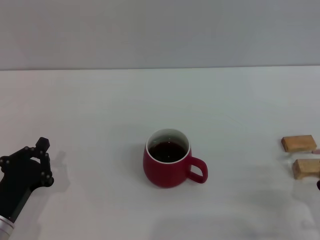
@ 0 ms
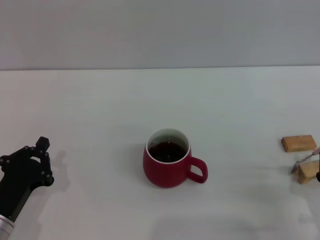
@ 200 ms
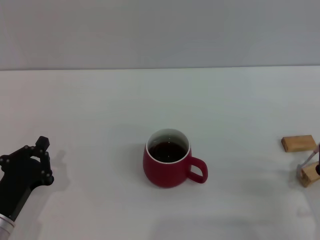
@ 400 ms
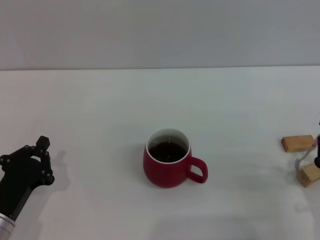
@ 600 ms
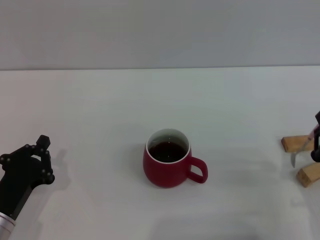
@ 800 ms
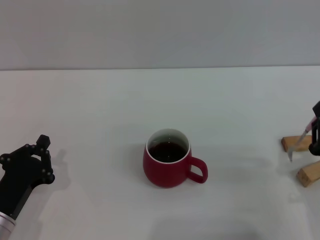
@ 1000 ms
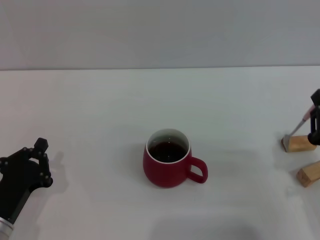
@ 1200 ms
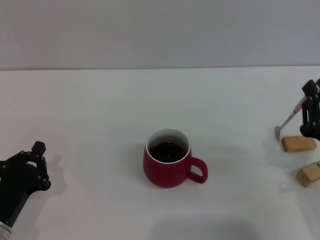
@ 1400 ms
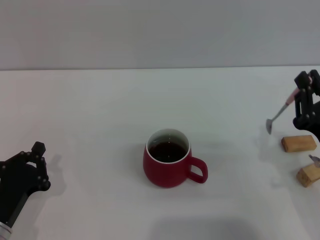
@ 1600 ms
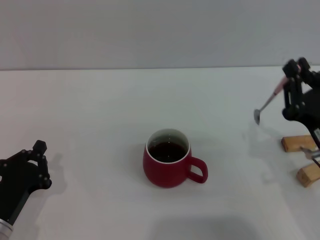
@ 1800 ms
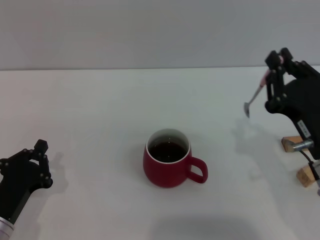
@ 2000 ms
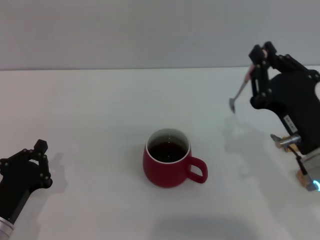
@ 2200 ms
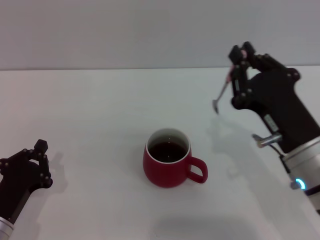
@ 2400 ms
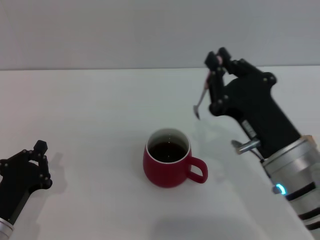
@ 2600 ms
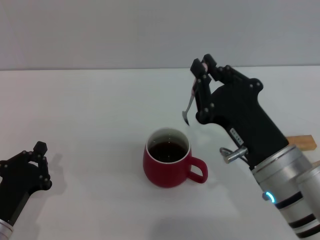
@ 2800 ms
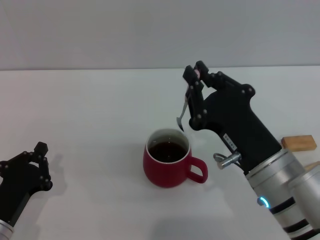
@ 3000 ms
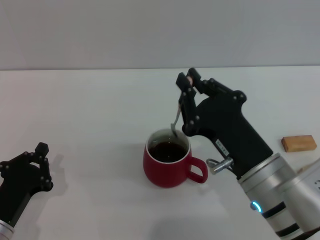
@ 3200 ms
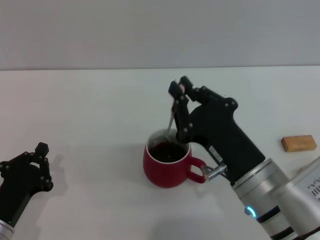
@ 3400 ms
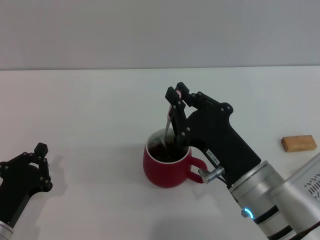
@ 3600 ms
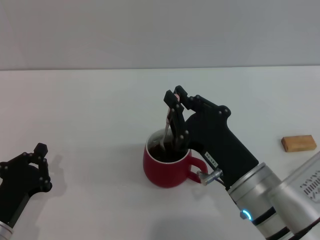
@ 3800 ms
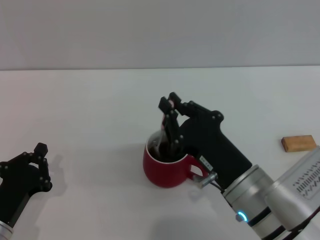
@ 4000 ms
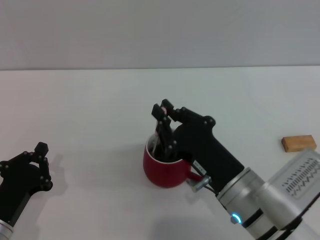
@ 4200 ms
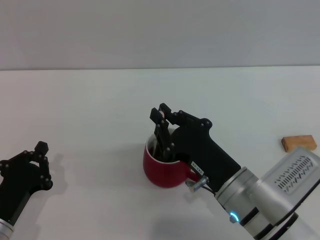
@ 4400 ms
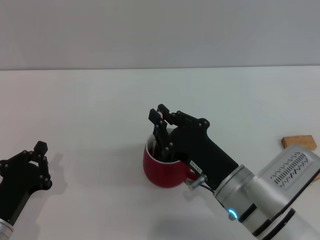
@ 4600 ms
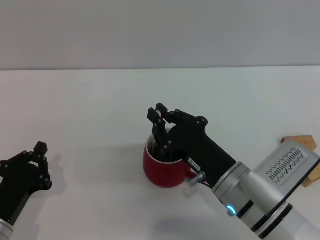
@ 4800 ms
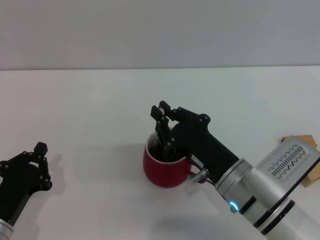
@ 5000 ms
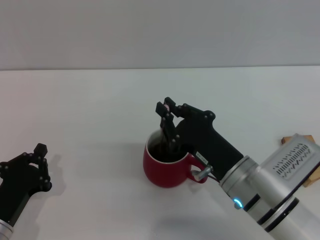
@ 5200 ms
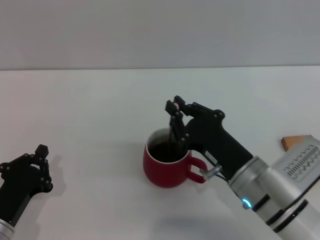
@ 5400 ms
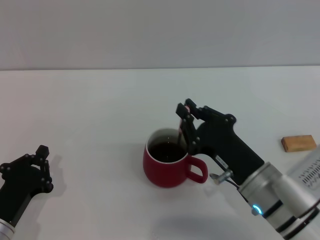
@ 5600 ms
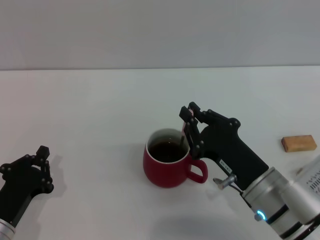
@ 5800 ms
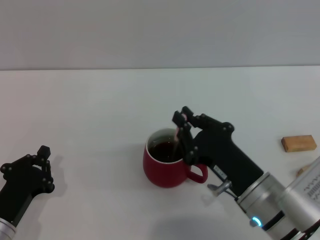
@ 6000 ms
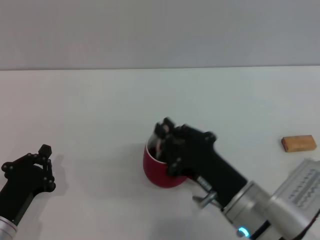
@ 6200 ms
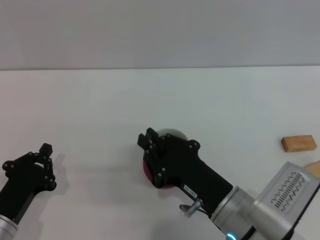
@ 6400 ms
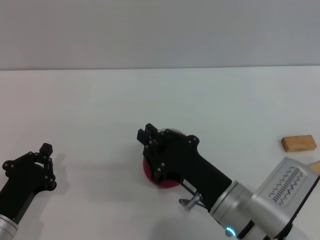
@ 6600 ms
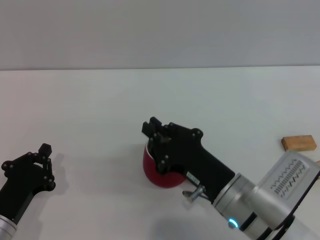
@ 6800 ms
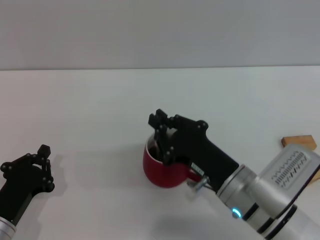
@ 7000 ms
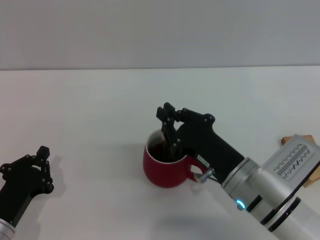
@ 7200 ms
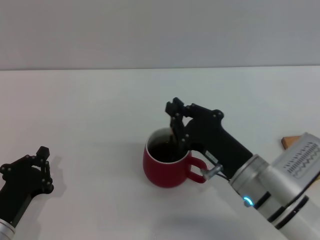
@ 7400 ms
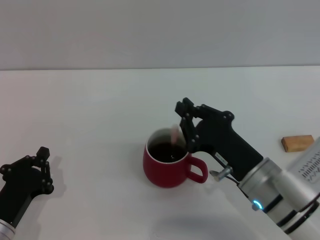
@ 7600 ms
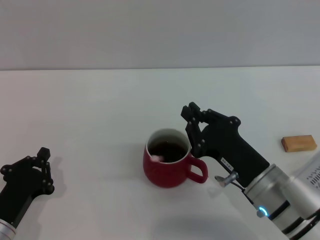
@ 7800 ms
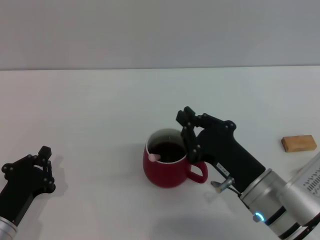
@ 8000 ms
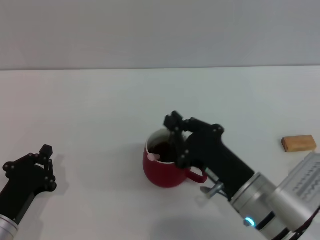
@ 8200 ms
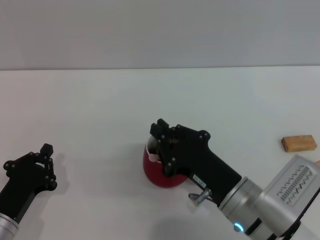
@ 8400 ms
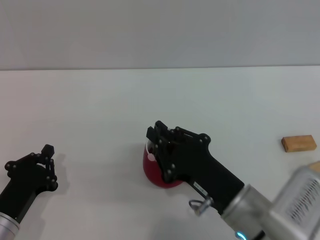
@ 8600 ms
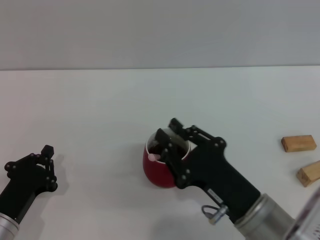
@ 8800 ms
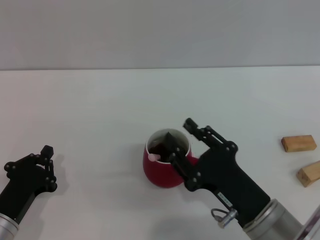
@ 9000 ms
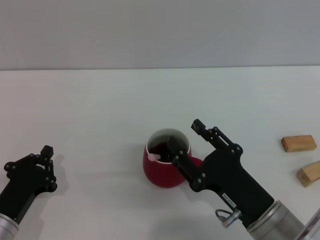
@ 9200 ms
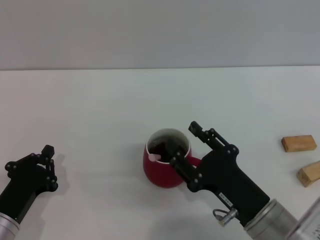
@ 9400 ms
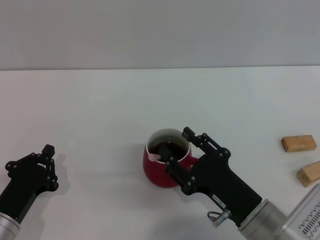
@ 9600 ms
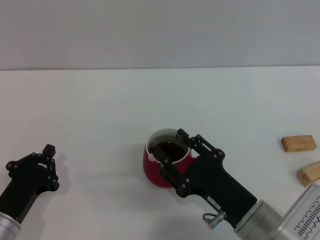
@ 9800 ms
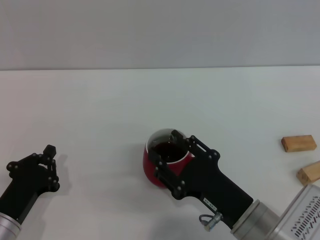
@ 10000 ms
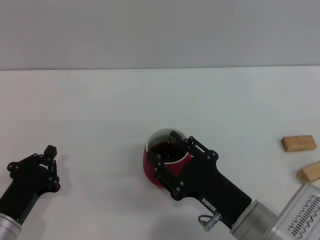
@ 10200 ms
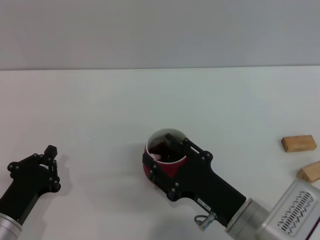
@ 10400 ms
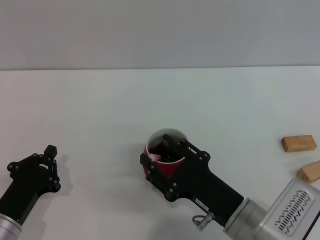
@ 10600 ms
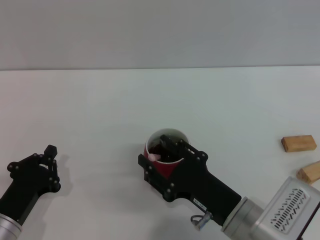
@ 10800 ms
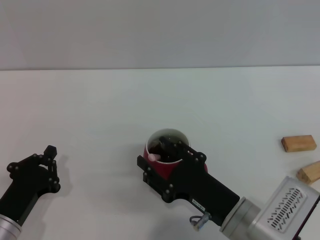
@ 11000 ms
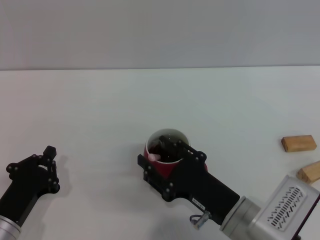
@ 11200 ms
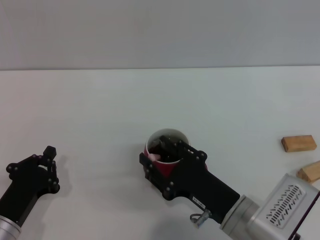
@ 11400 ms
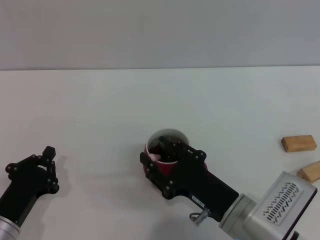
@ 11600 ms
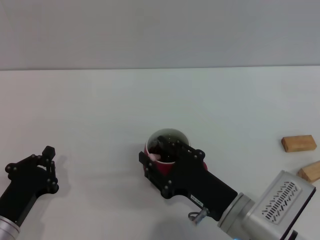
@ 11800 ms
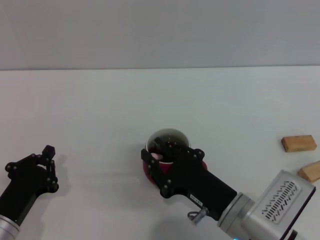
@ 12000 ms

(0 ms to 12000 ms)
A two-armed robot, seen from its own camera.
Task of the whole recording: Move the red cup to the center, lift the pink spoon, stir it three times in the cup, and put the spoon into the cup.
0 ms - 1600 ms: The right gripper goes approximately 10 cm forward and upward.
1600 ms - 3000 ms: The right gripper is displaced to the left by roughly 10 cm.
3000 ms - 4400 ms: The right gripper is displaced downward by roughly 5 cm.
4400 ms - 7600 ms: There are only small adjustments of the grippers.
7600 ms - 9000 ms: The right gripper travels backward by some 5 cm.
9000 ms - 10400 ms: The right gripper opens its fingers.
10400 ms - 12000 ms: Neither gripper changes place.

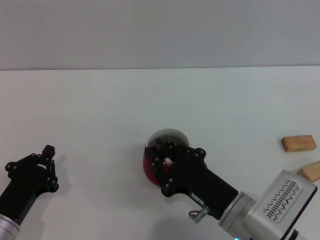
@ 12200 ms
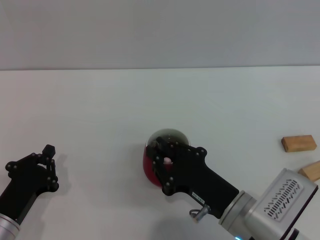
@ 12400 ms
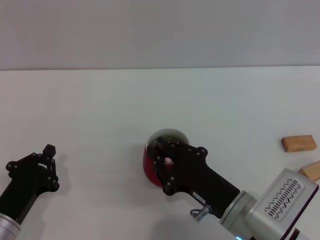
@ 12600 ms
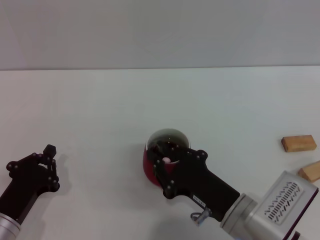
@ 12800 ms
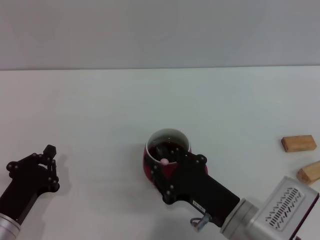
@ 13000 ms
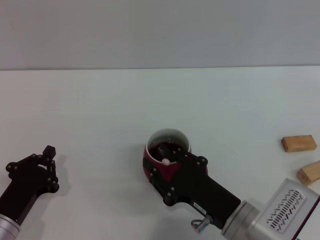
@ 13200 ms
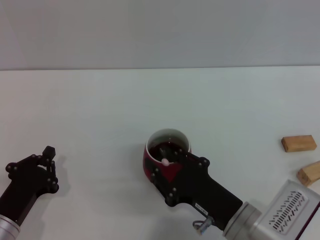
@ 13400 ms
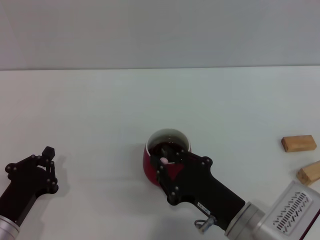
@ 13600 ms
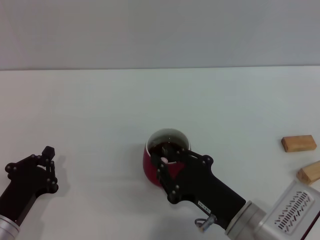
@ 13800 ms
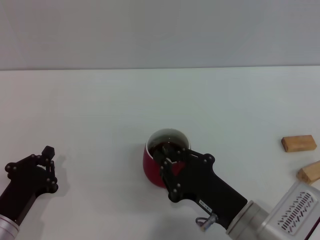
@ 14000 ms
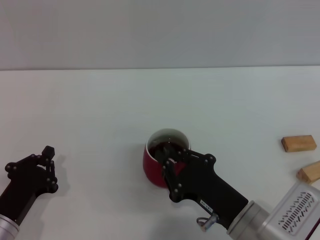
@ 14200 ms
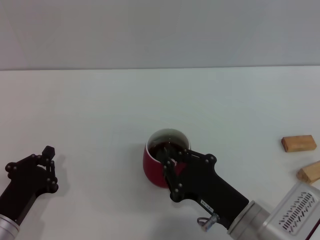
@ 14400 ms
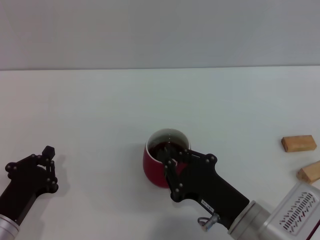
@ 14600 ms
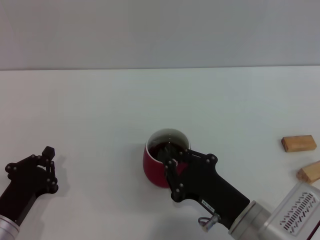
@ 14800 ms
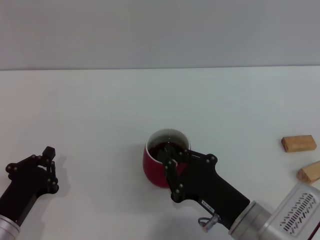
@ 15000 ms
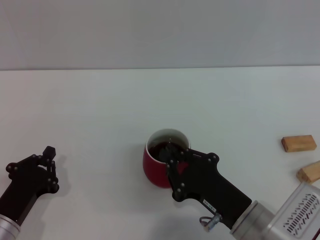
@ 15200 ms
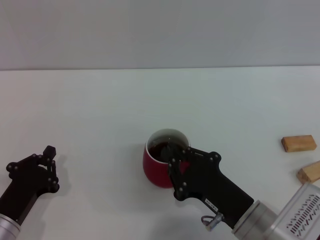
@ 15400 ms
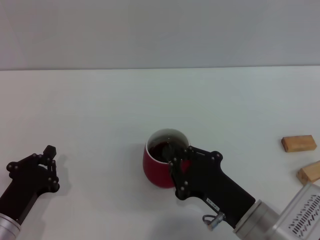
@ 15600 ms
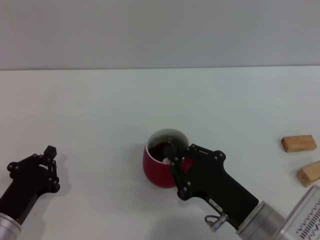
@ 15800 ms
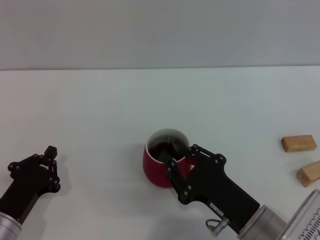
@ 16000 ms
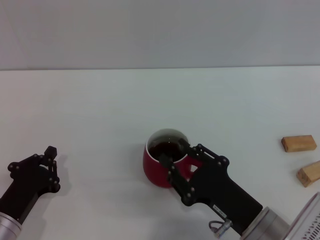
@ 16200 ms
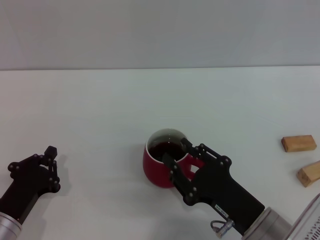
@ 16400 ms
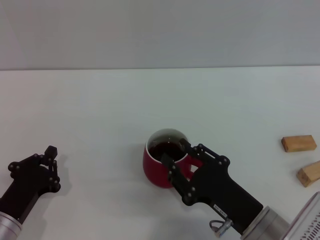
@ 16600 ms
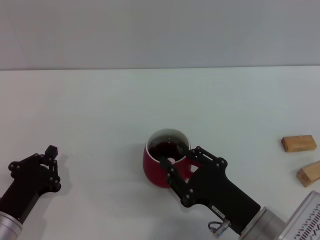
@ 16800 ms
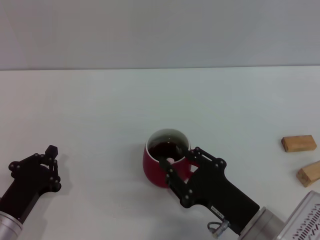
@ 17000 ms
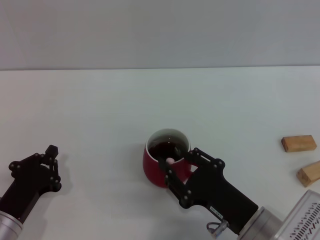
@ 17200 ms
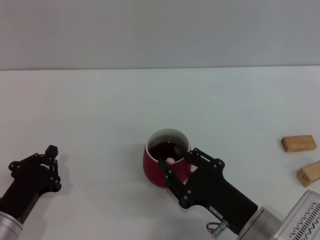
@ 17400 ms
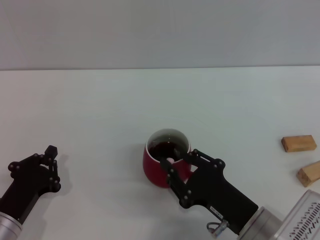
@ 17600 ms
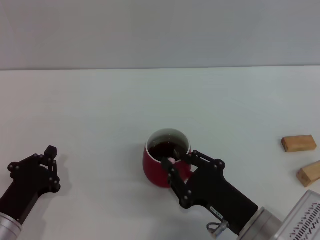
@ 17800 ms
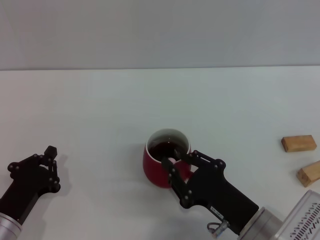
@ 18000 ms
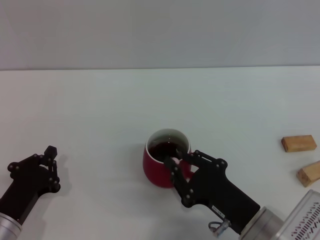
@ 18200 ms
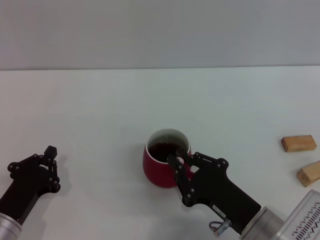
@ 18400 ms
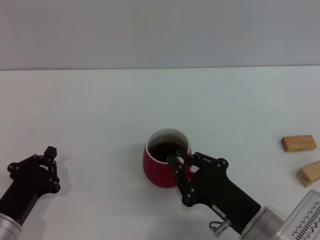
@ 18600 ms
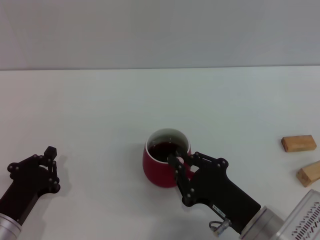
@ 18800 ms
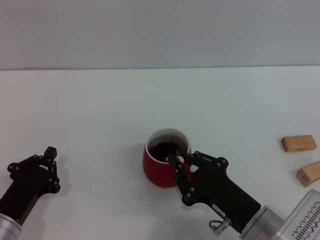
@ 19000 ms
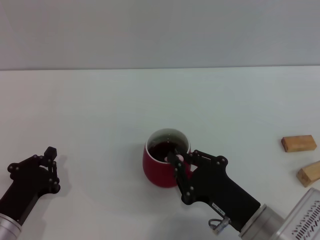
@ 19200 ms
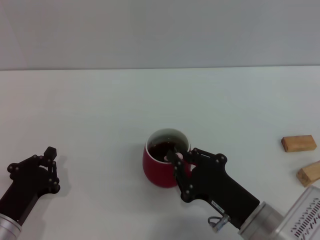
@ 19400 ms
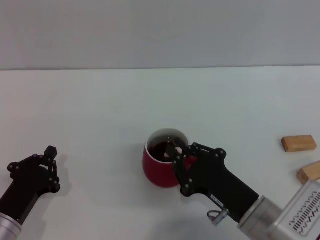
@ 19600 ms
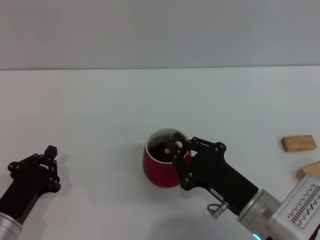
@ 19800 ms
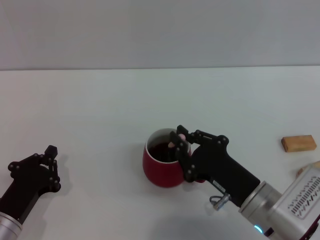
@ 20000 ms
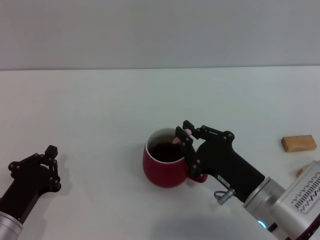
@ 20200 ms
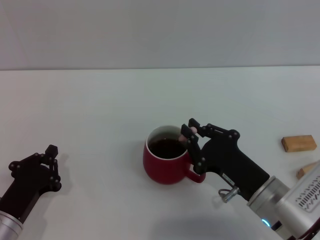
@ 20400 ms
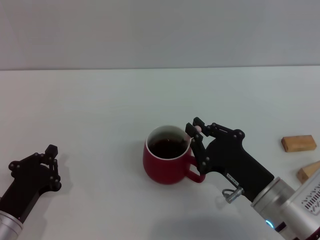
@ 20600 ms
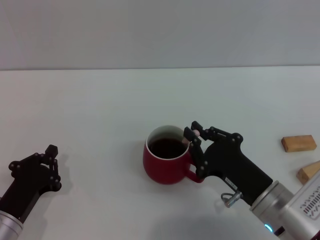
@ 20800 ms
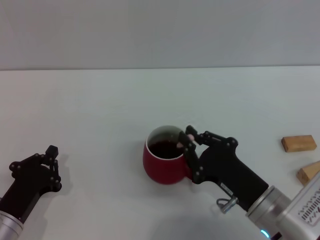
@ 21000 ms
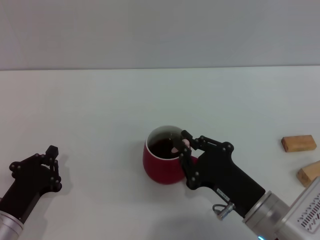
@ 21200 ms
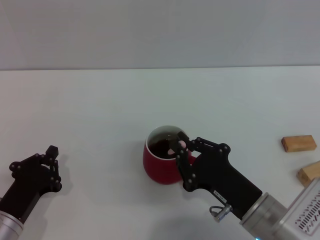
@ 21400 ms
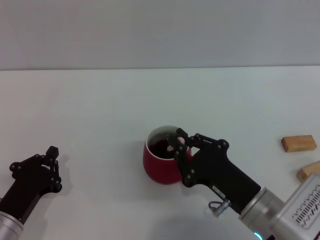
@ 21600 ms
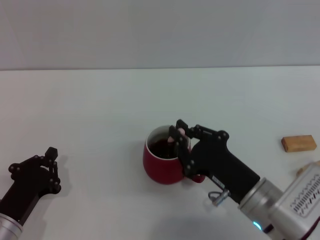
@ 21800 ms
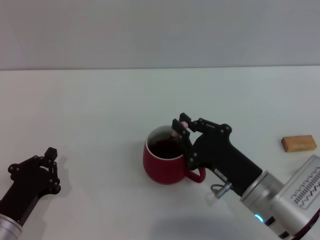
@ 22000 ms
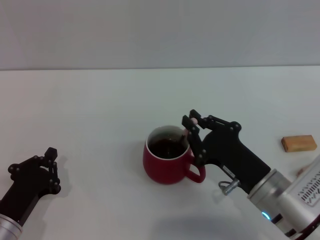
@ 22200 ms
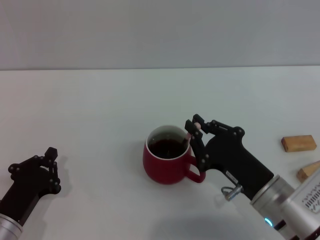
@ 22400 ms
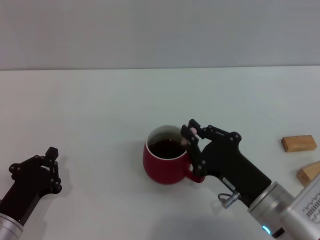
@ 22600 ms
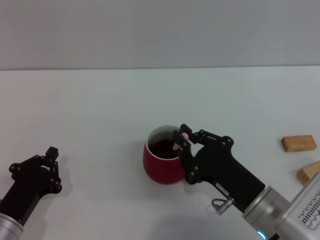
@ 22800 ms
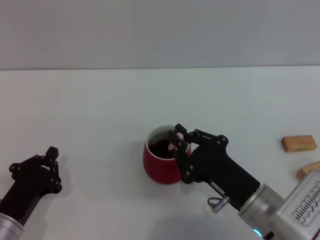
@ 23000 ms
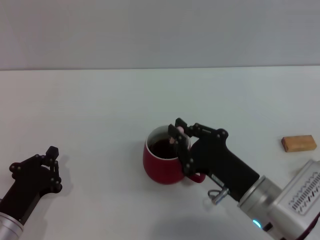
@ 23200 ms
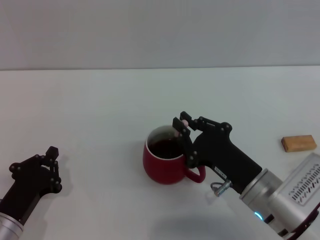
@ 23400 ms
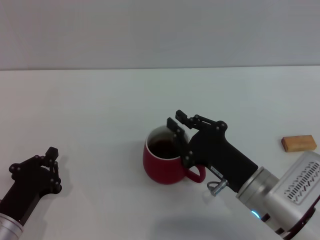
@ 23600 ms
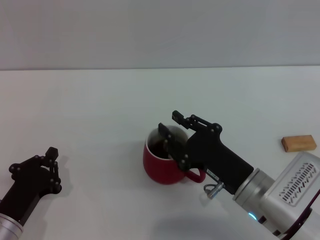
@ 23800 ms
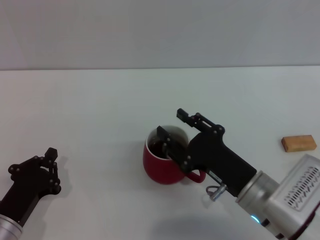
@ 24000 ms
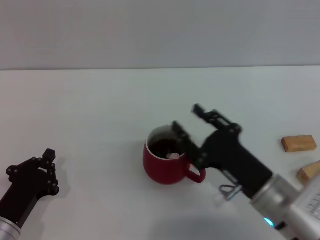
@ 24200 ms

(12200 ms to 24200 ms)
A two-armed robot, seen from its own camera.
Task of the whole recording: Move the red cup to the center, lift the pink spoon, stir it three times in the cup, and put the spoon into the cup.
Step, 12200 ms - 24000 ms: Stir the coffee in the cup with the right gripper.
12200 ms - 13800 ms: There are only small adjustments of the grippers.
13800 ms - 15200 ms: Both grippers stay about where they are.
15200 ms - 16600 ms: The right gripper opens up.
16600 ms - 18200 ms: Neither gripper changes place.
18200 ms - 22600 ms: The grippers move only a little.
22600 ms - 24200 ms: The right gripper opens up.
